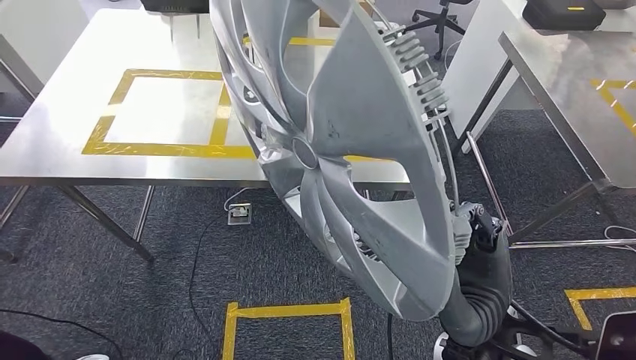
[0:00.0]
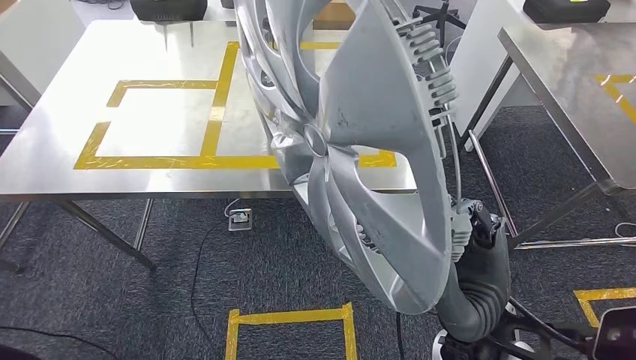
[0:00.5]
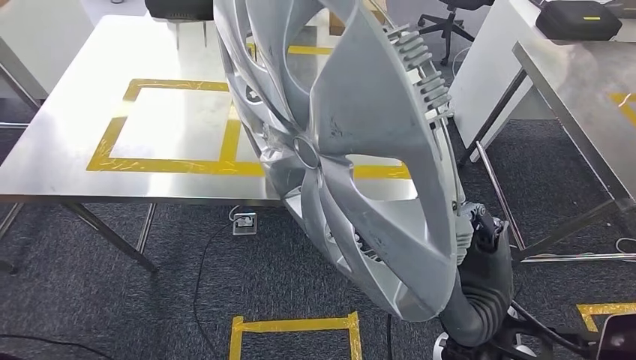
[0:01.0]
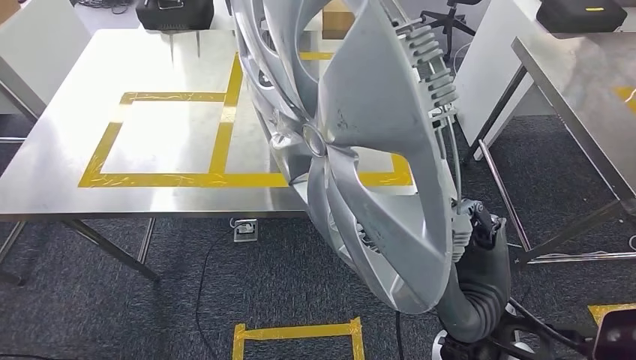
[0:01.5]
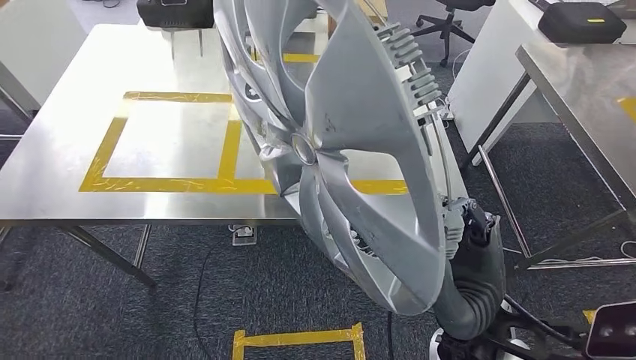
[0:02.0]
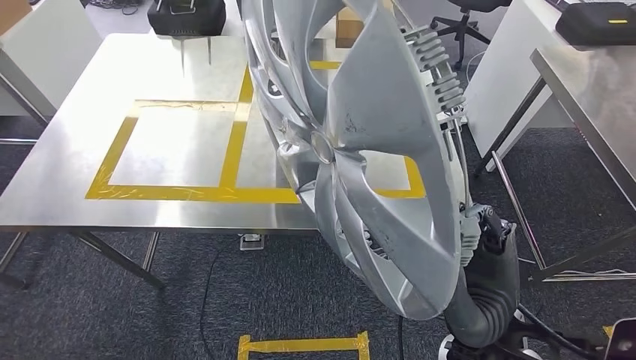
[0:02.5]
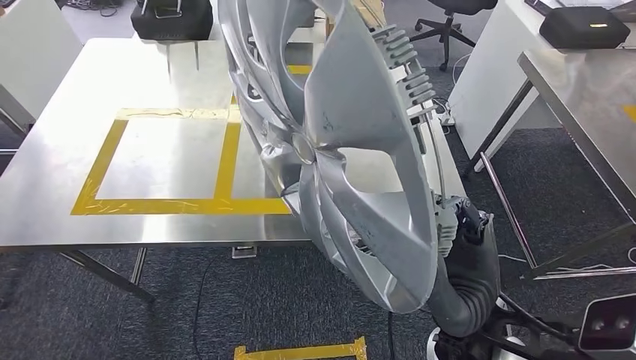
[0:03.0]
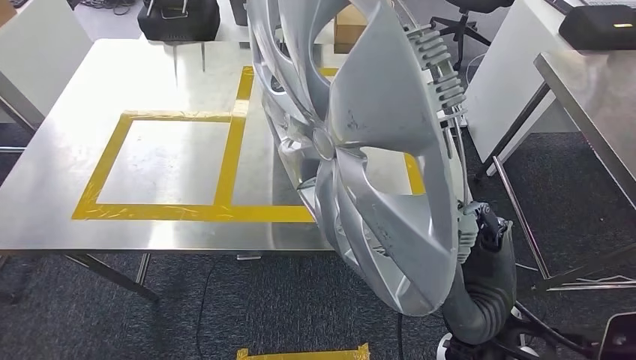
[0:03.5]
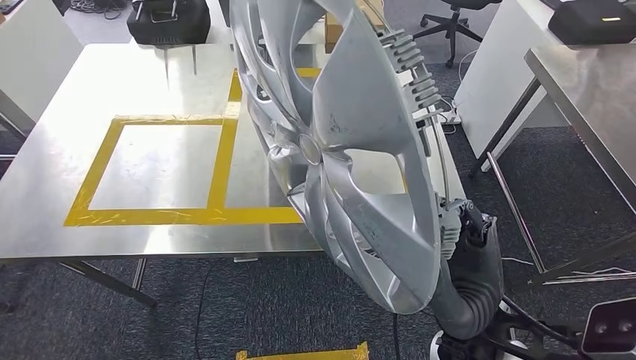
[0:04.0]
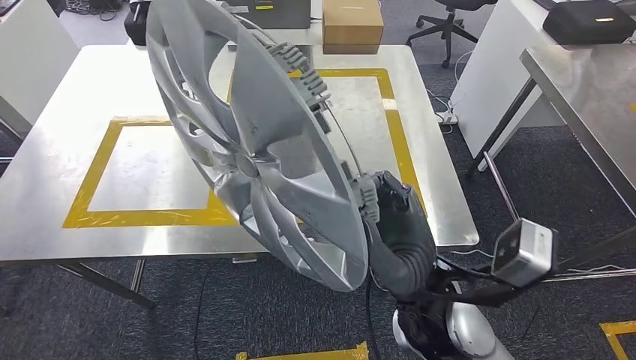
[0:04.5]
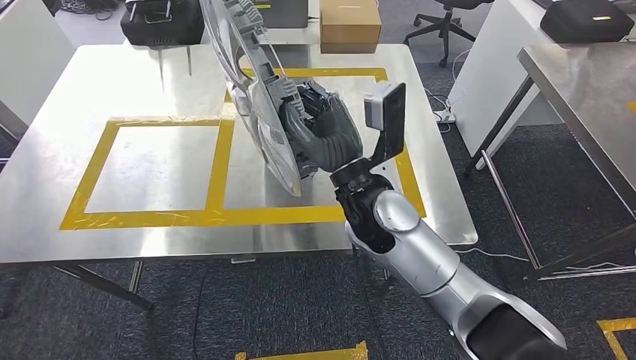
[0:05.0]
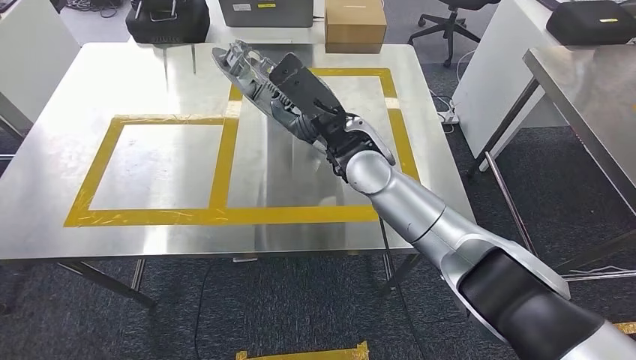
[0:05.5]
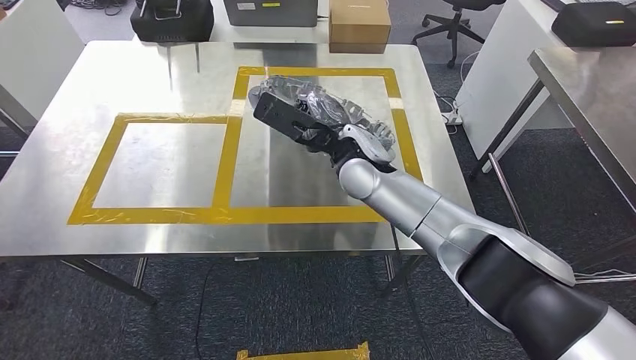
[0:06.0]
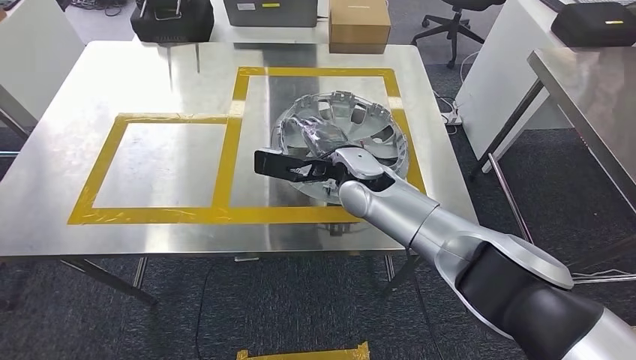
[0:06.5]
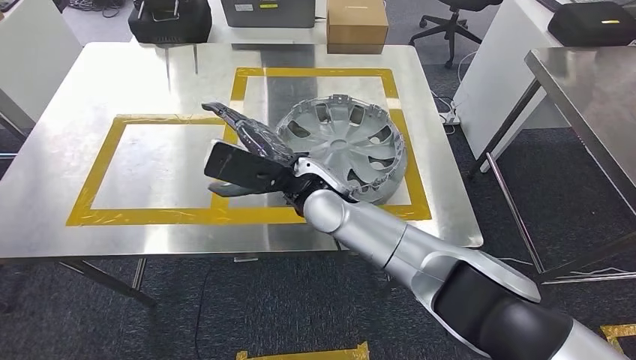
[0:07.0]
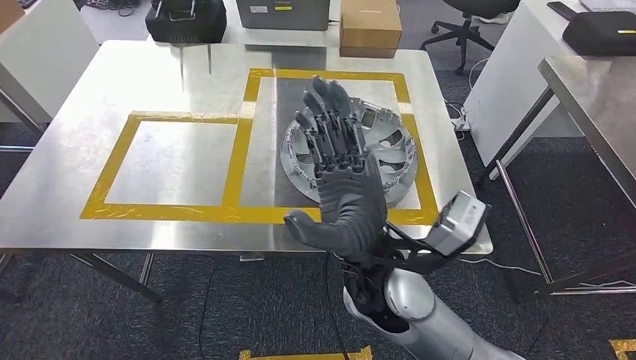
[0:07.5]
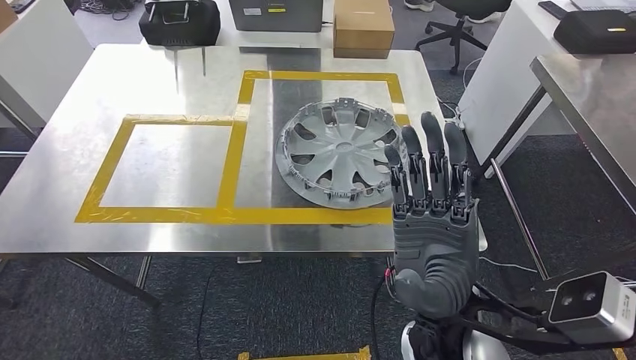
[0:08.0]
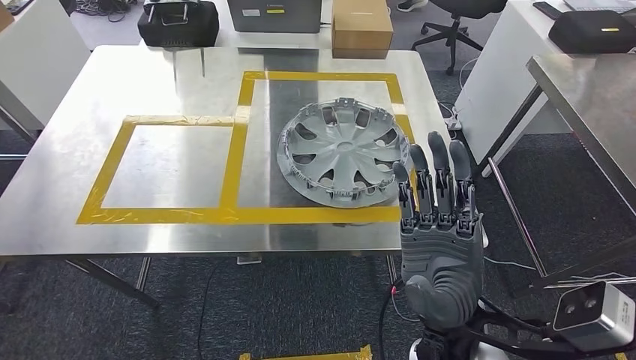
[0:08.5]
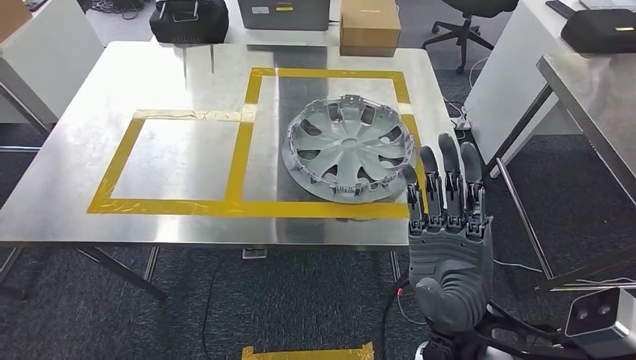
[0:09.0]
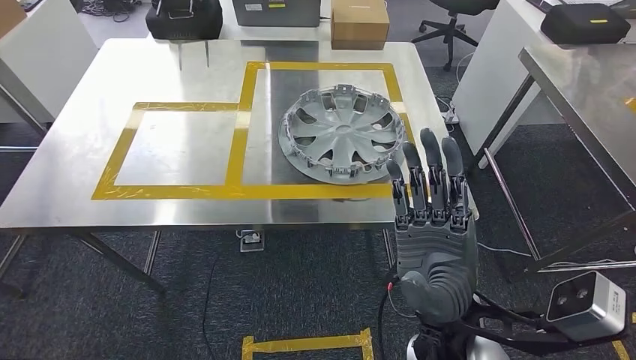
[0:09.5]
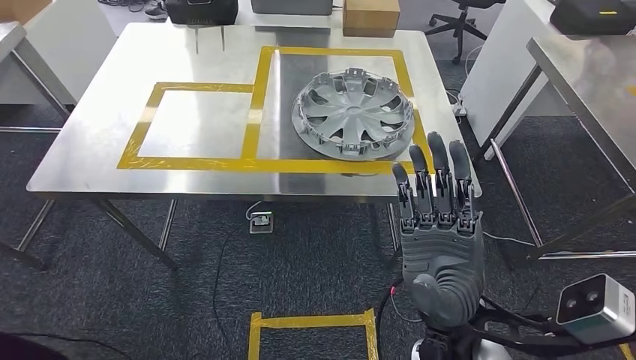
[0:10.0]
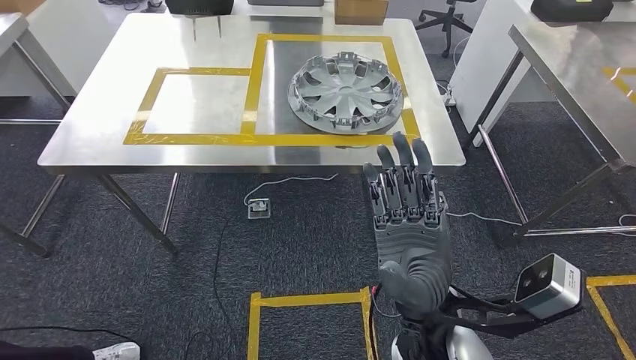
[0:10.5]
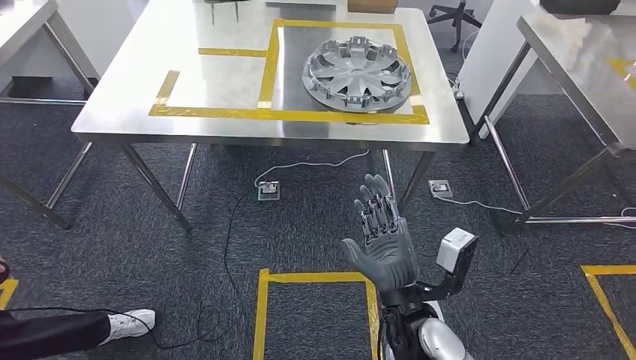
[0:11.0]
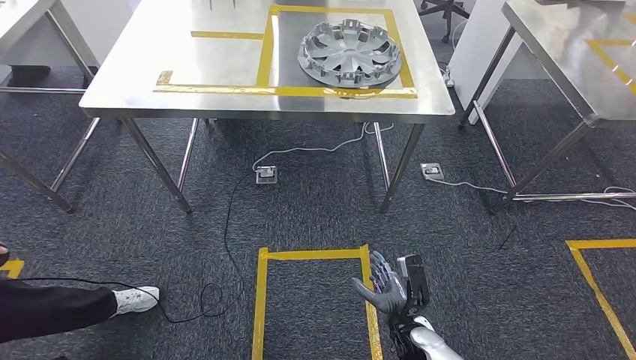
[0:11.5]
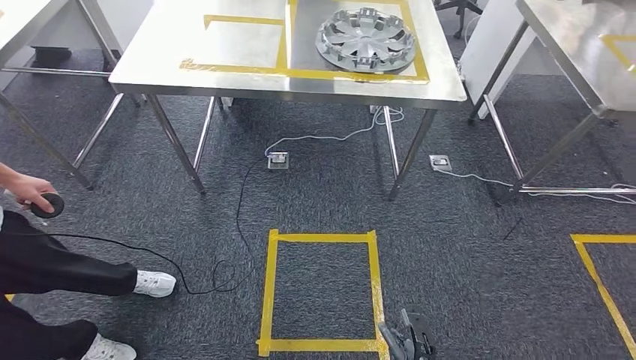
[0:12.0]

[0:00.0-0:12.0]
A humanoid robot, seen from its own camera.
Step, 0:00.0 to 0:09.0: Insert the small component into the corresponding slot on the workbench.

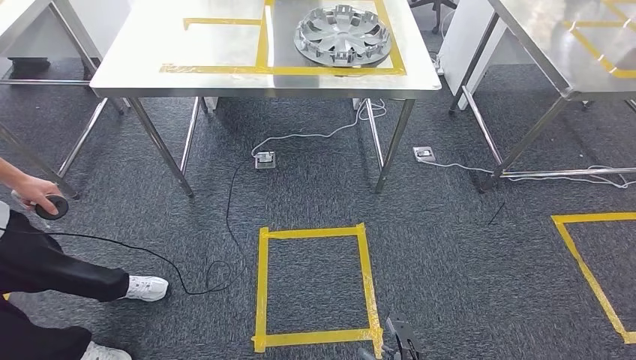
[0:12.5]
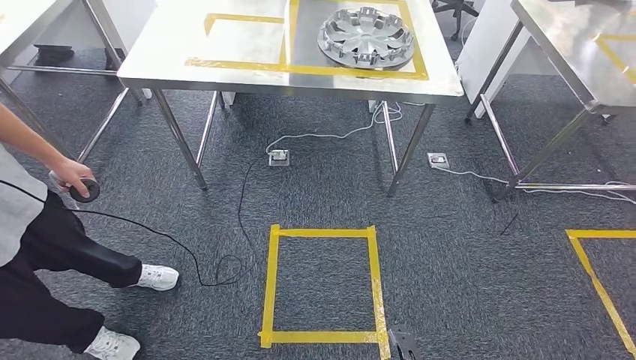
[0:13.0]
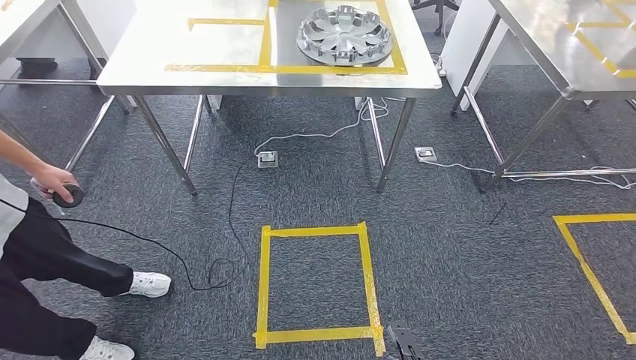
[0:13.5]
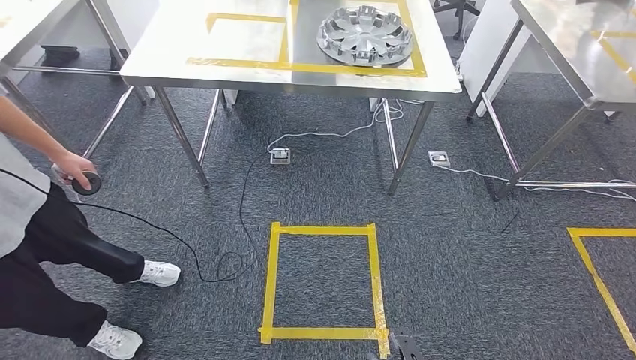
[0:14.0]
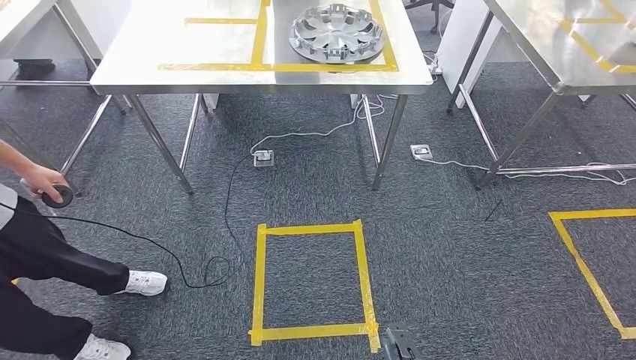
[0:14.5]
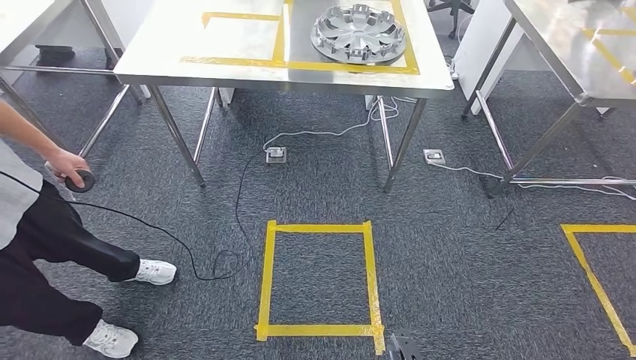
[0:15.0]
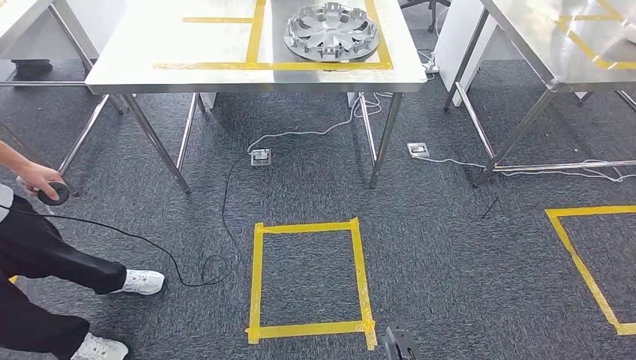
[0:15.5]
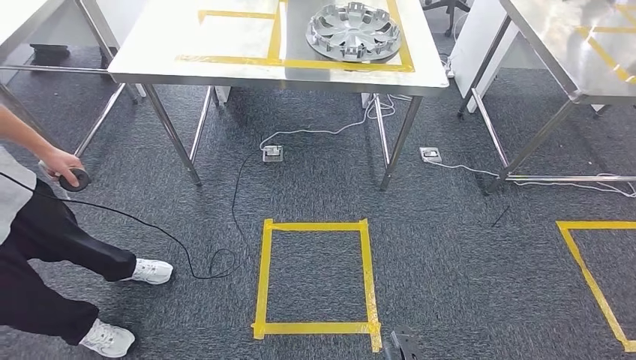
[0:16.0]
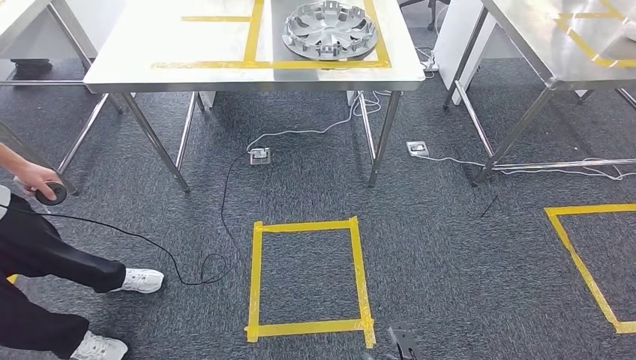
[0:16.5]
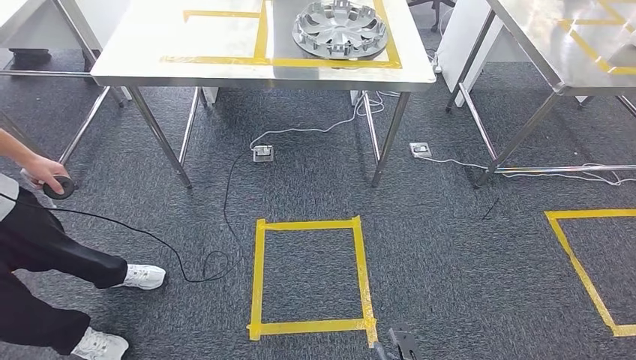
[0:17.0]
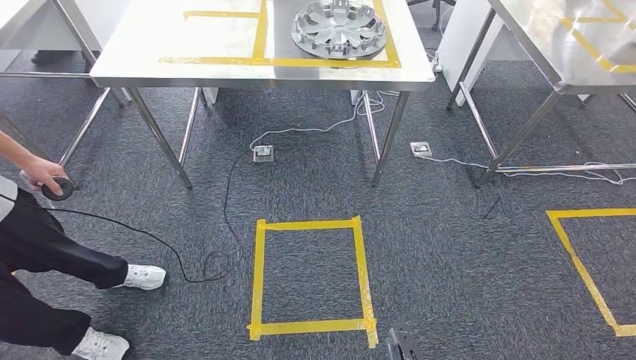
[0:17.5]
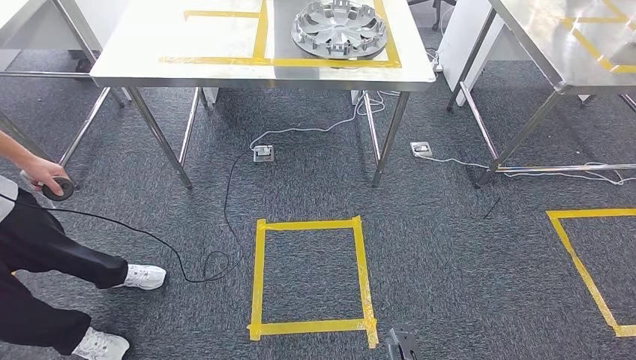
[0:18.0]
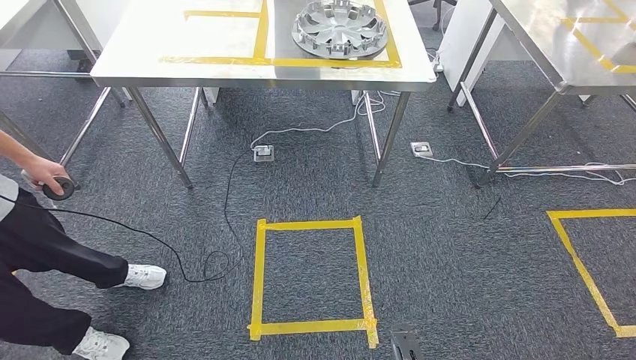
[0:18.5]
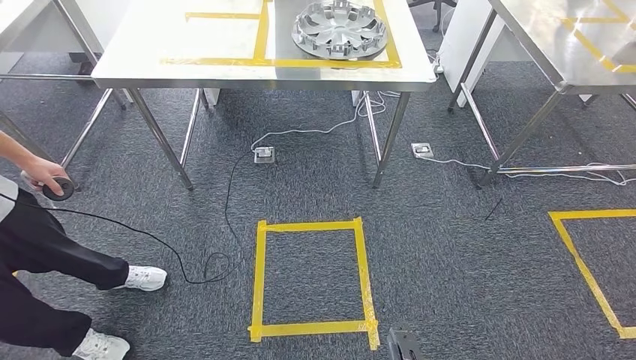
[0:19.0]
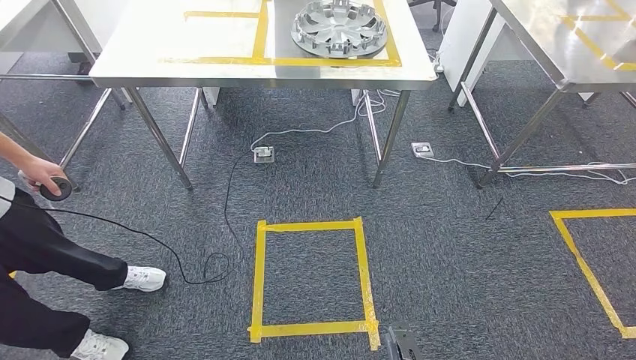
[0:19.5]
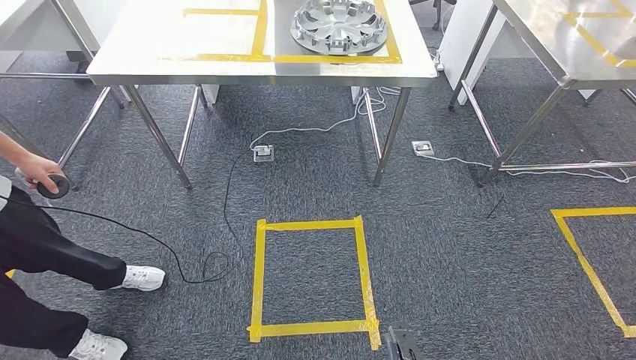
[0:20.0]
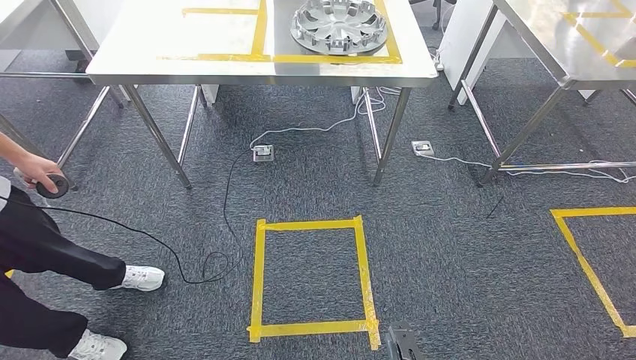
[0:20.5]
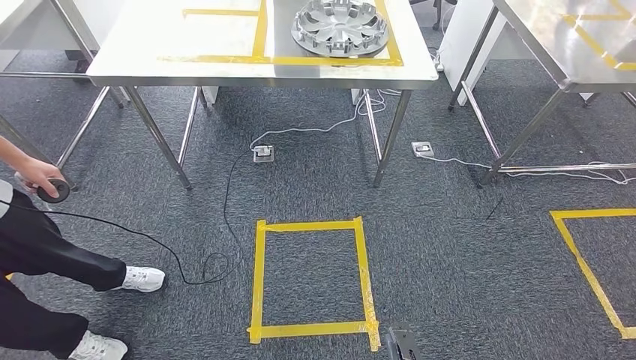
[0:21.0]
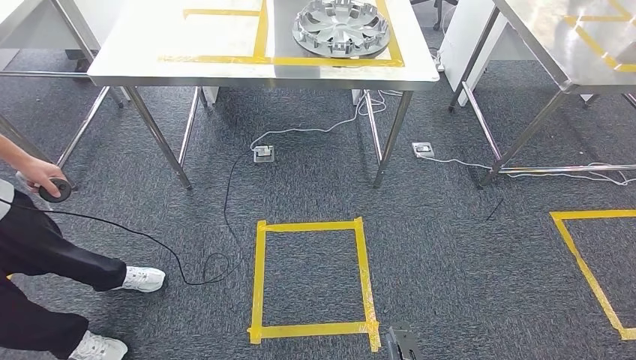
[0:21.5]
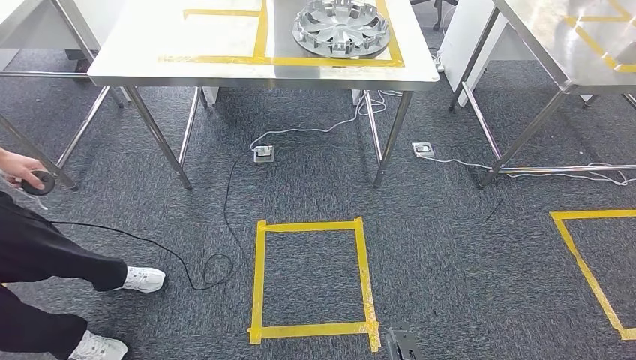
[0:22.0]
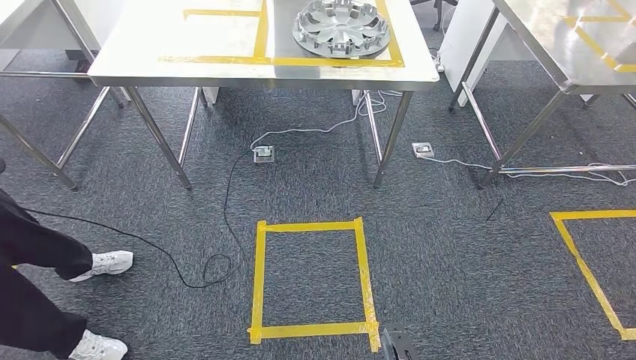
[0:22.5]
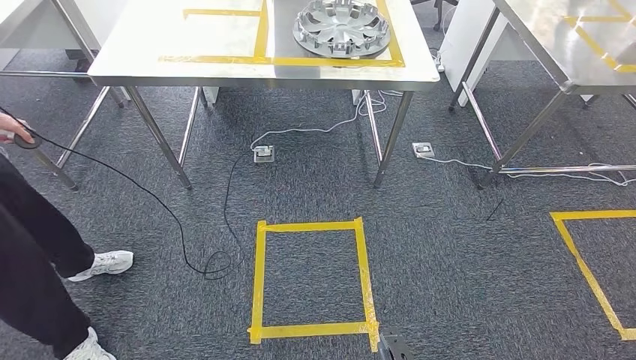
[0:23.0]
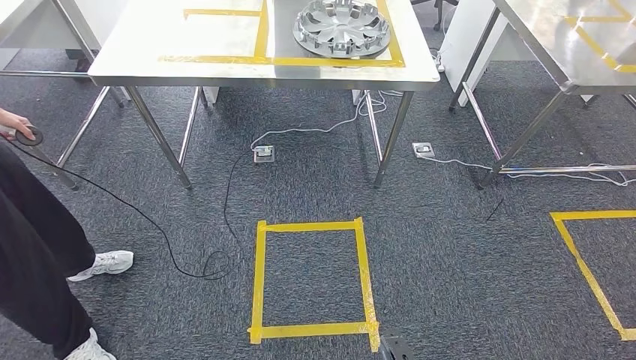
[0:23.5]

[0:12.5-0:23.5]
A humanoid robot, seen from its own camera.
0:12.5 to 0:14.5: The hands make only small movements.
0:18.0 to 0:20.0: The hands stay close to where they were, moving slightly.
0:20.0 to 0:21.5: Both hands stay put.
0:21.5 to 0:23.5: The hands make only small movements.
